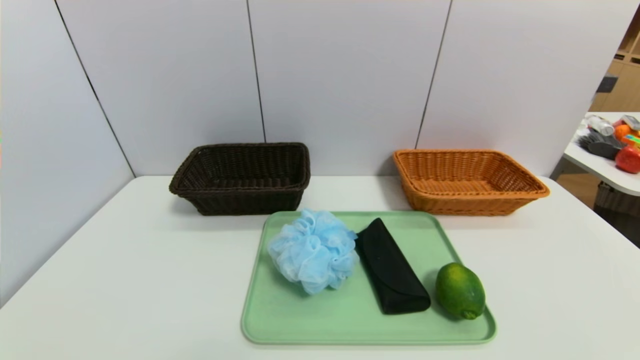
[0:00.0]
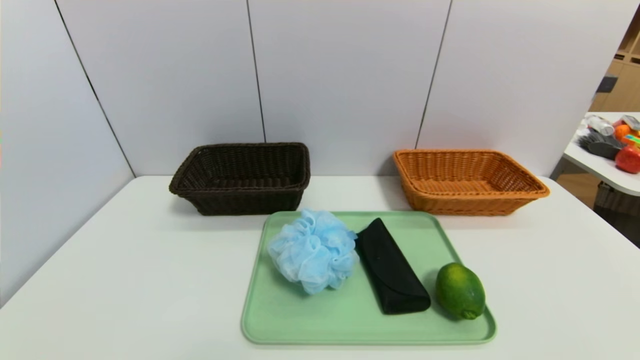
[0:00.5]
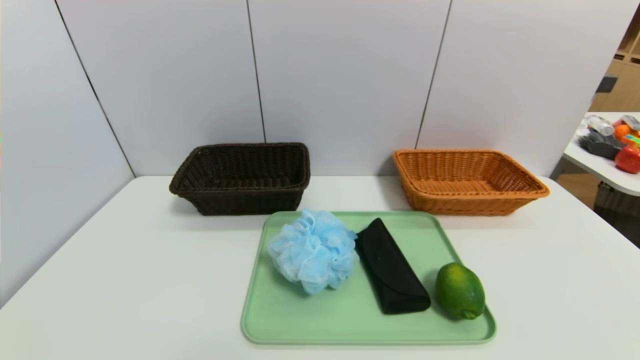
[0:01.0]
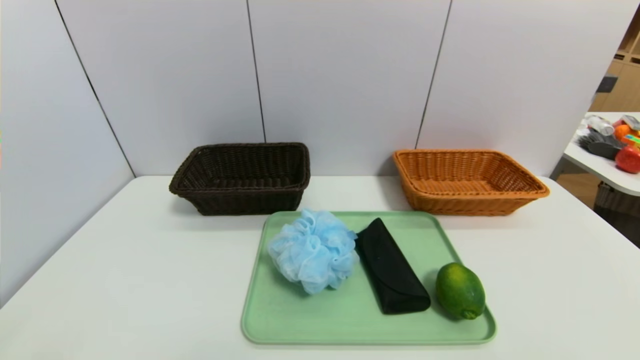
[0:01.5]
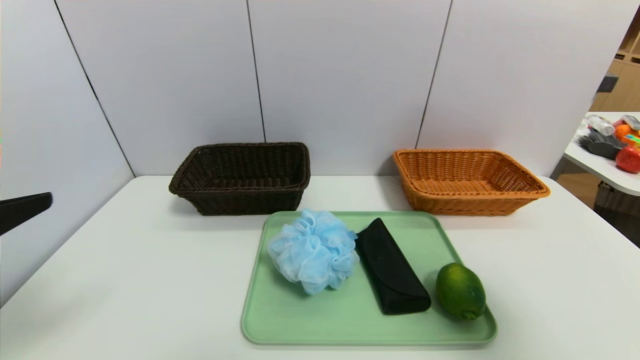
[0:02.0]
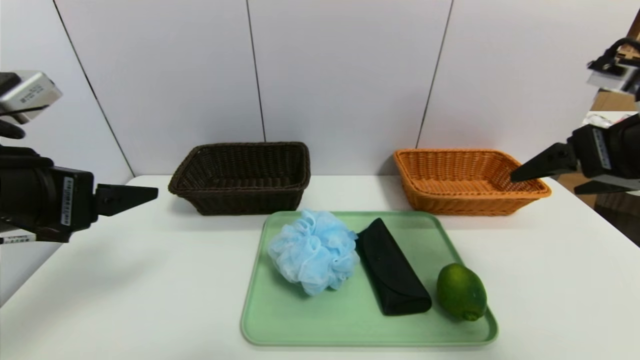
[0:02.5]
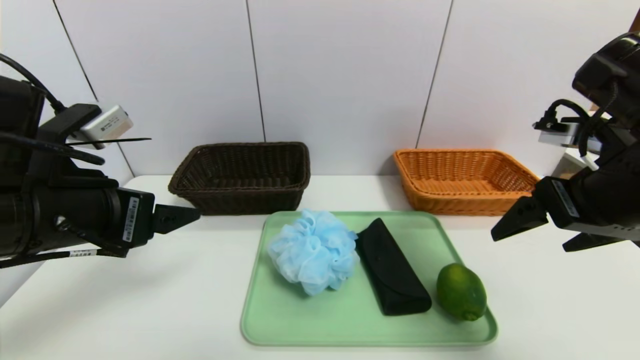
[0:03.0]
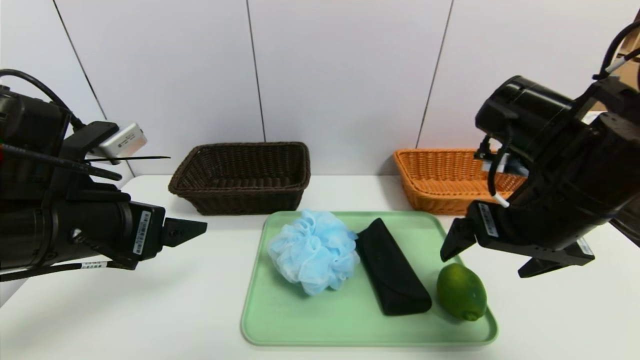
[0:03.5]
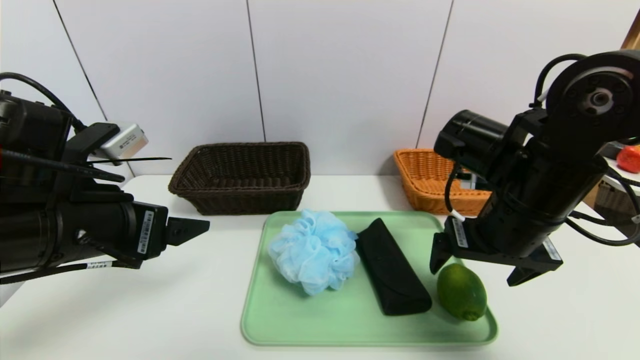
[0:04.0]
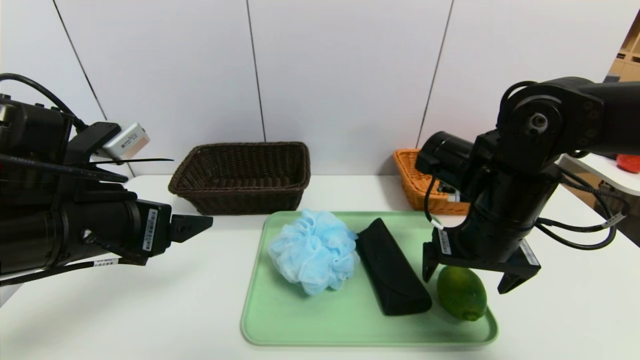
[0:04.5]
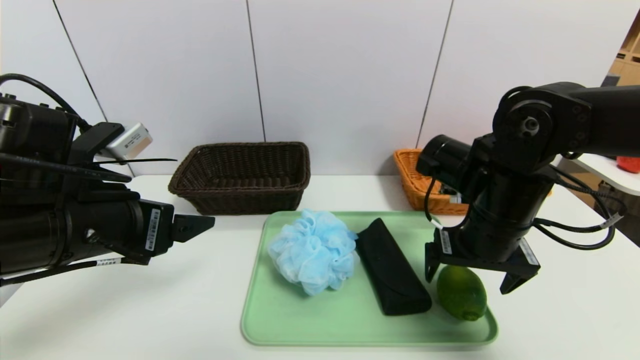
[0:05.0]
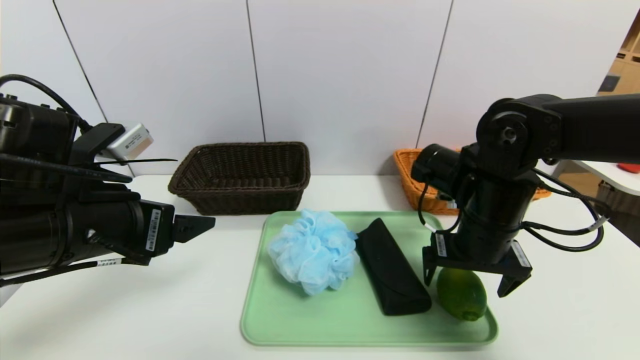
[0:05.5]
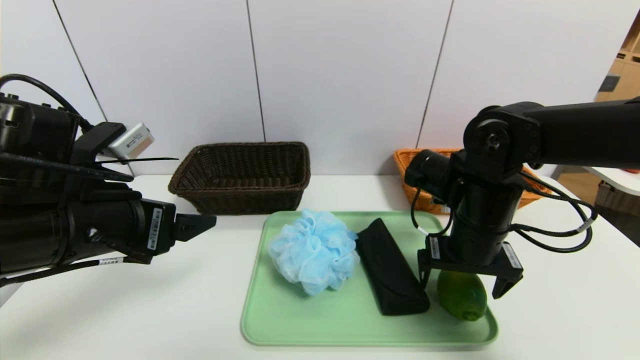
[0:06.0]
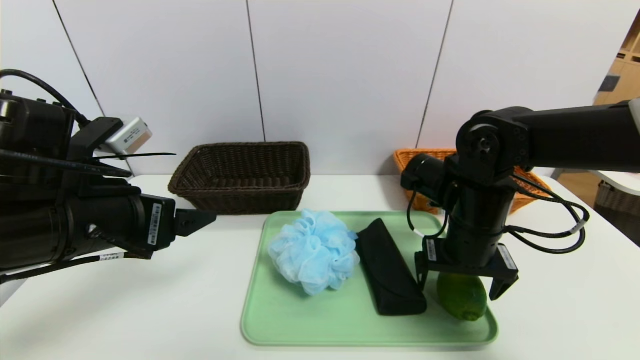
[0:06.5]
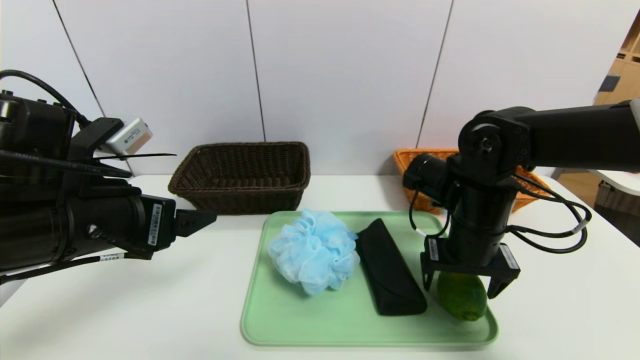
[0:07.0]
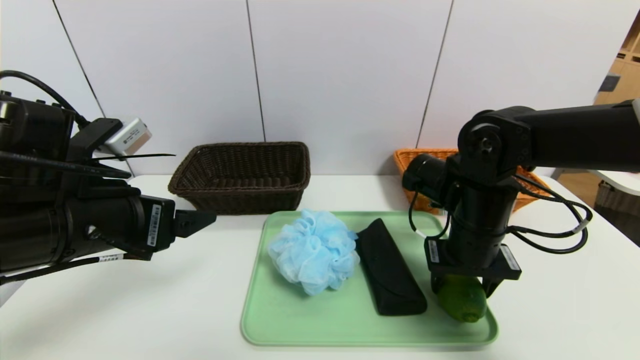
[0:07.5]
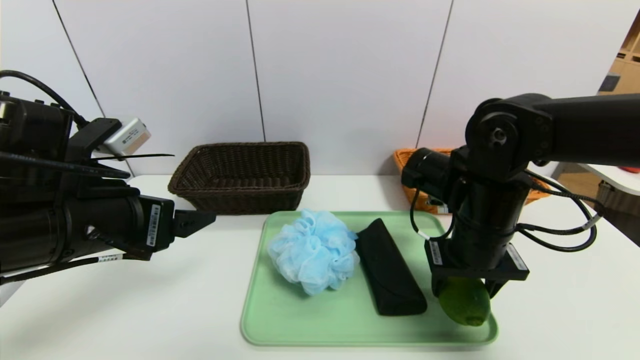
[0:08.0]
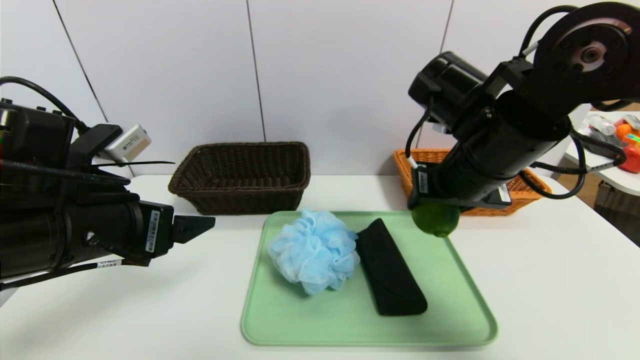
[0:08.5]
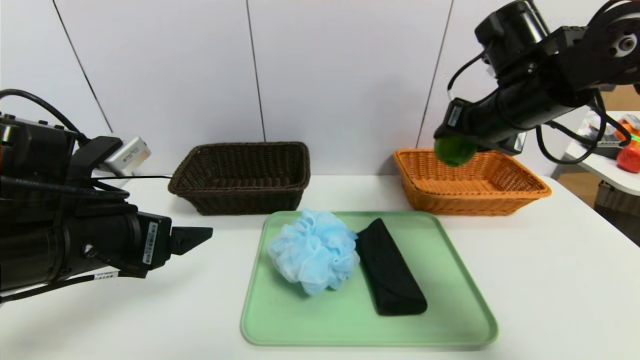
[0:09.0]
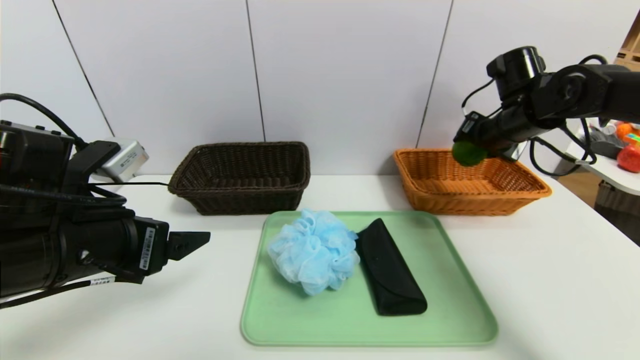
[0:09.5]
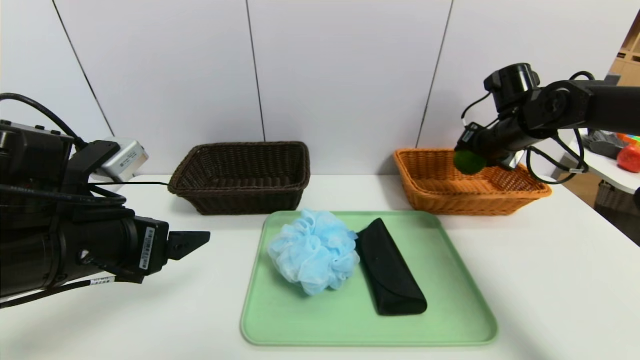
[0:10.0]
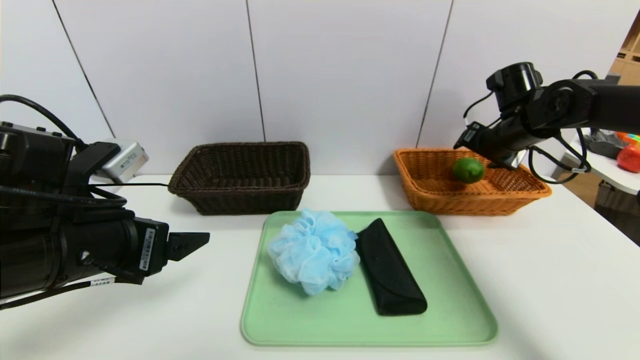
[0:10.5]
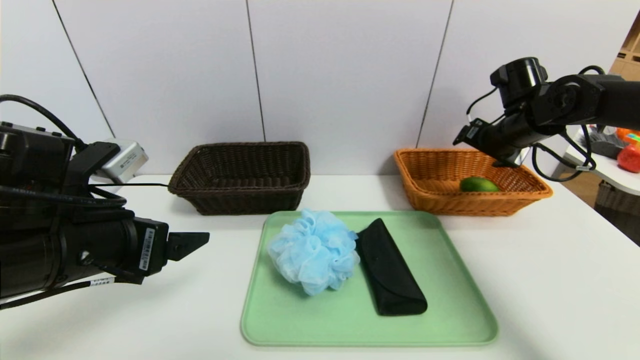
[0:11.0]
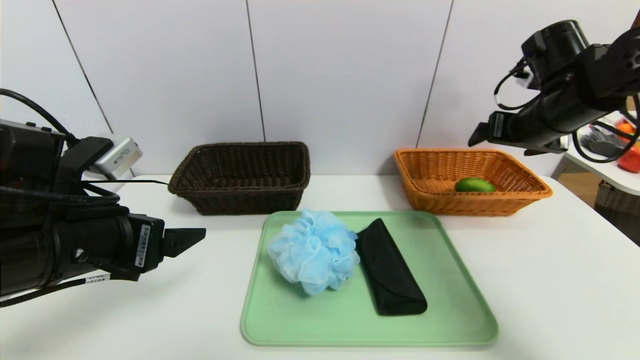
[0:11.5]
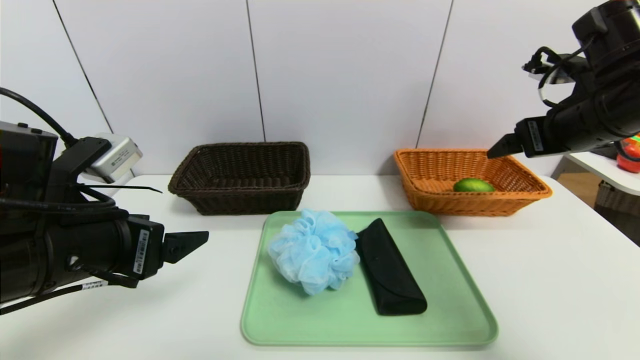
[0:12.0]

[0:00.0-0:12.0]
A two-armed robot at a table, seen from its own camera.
Task of the whole recording: place the food in the right basket with the right gripper, and place the non food items in the left basket with the left gripper.
Step, 0:00.0 to 0:10.5: Grasp the lemon and put it in the right basket.
0:00.0 to 0:02.0: The right gripper goes approximately 30 cm upward; the left gripper travels upward and forward by approximately 25 cm.
0:02.0 to 0:04.0: The left gripper shifts some 15 cm forward, to the right and downward. Meanwhile the right gripper moves forward, to the left and downward, about 25 cm.
0:04.0 to 0:06.0: The right gripper goes some 5 cm downward.
0:06.0 to 0:08.0: The right gripper closes.
0:08.0 to 0:10.0: The right gripper goes about 20 cm forward and to the right.
0:10.0 to 0:12.0: The right gripper goes some 15 cm backward and upward, and opens up.

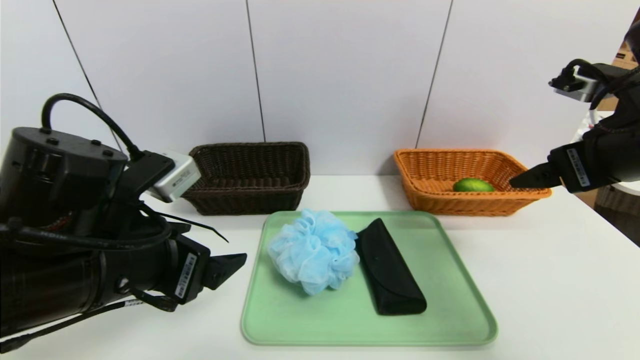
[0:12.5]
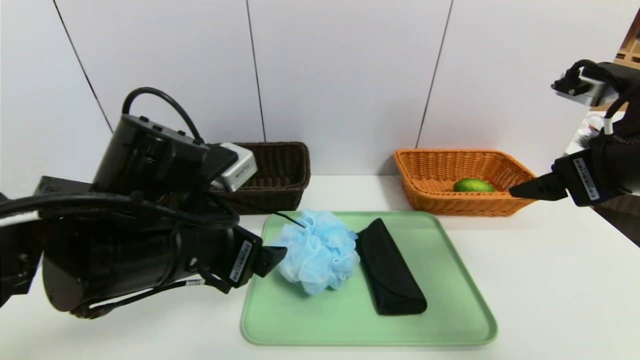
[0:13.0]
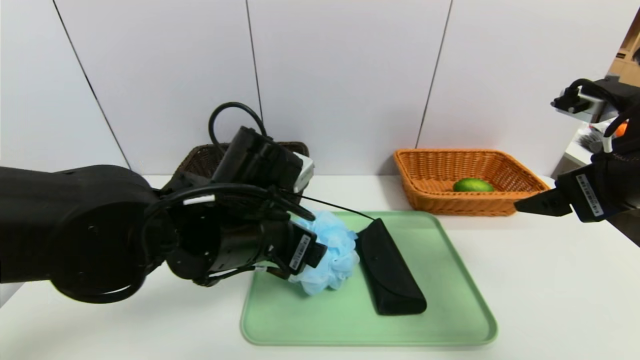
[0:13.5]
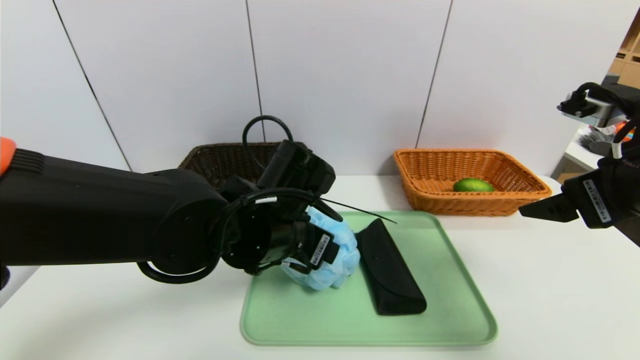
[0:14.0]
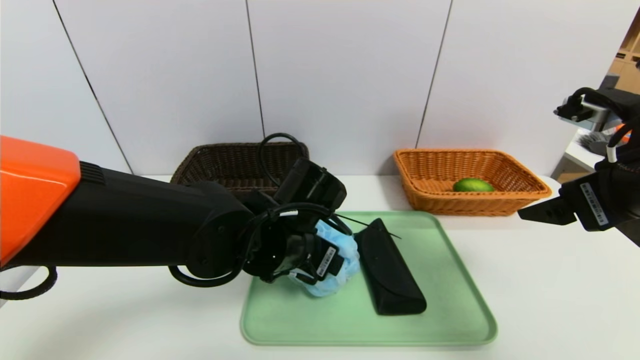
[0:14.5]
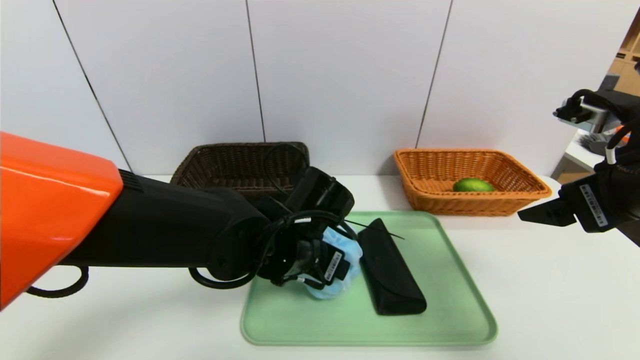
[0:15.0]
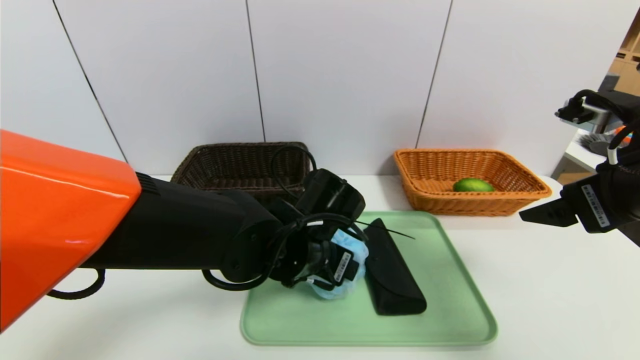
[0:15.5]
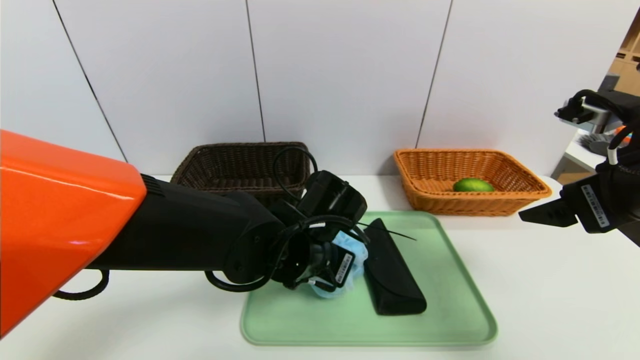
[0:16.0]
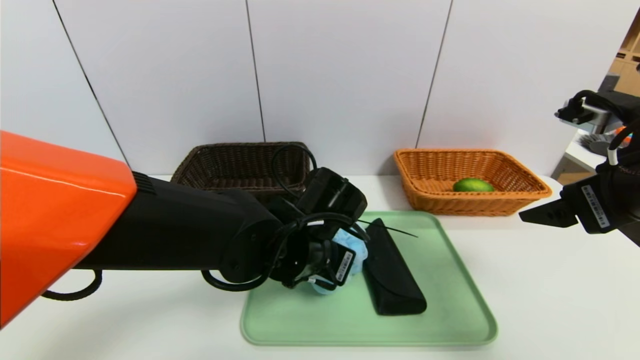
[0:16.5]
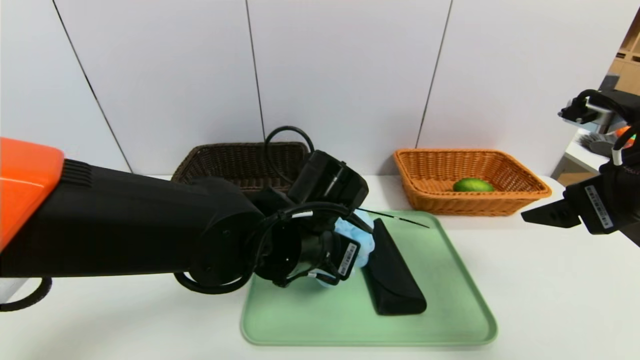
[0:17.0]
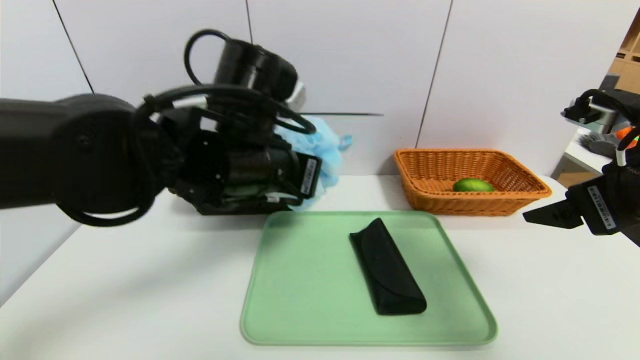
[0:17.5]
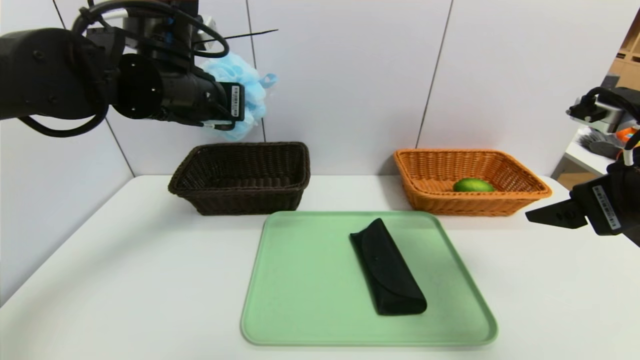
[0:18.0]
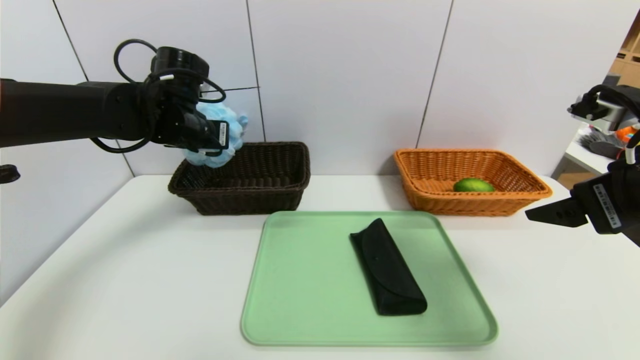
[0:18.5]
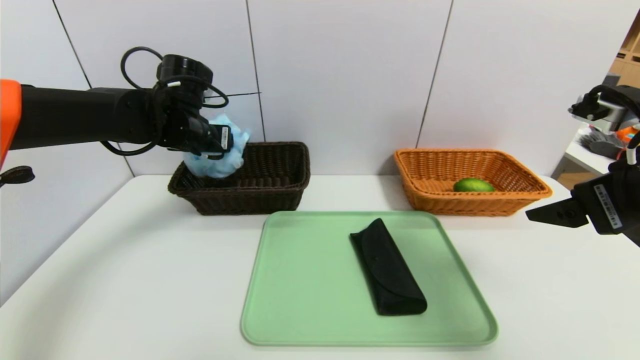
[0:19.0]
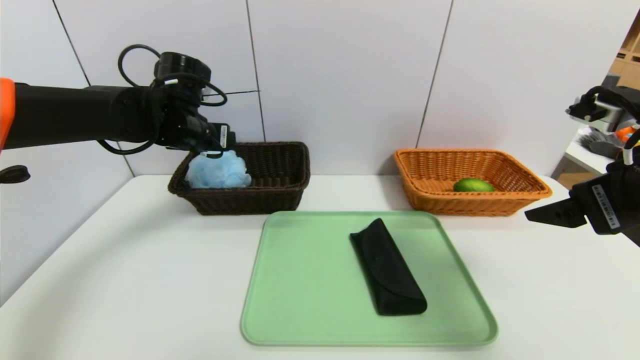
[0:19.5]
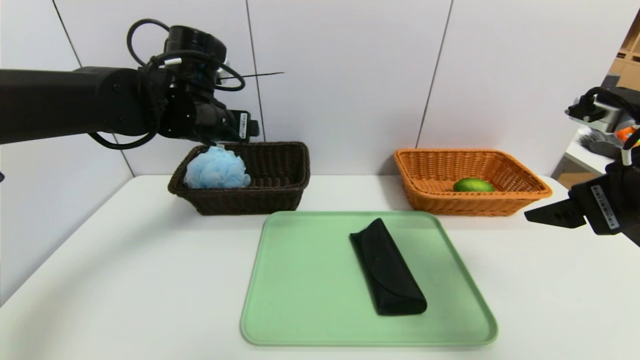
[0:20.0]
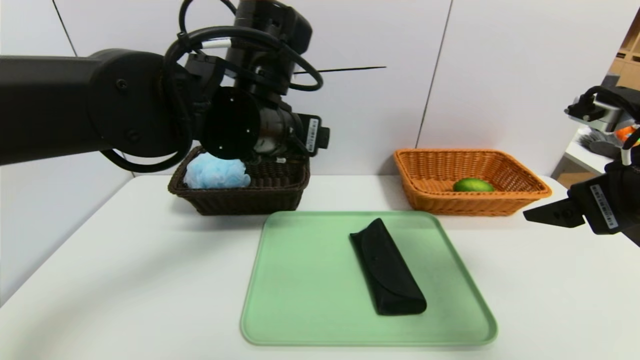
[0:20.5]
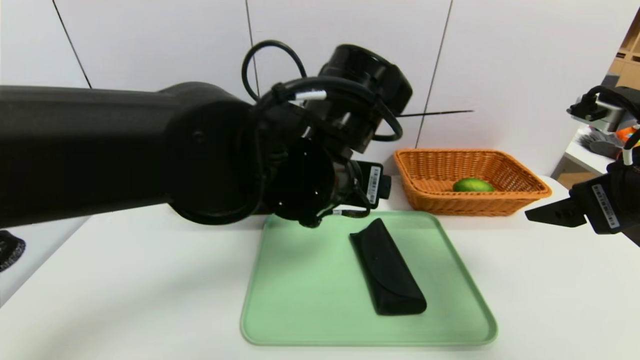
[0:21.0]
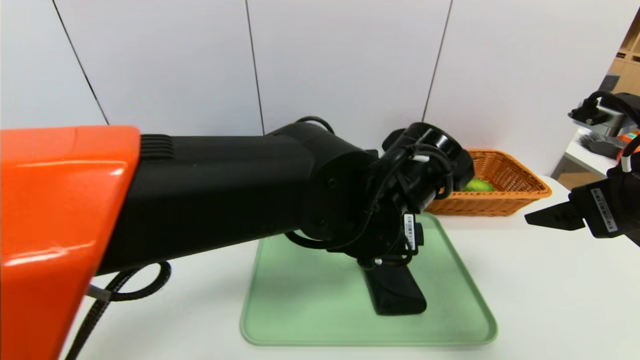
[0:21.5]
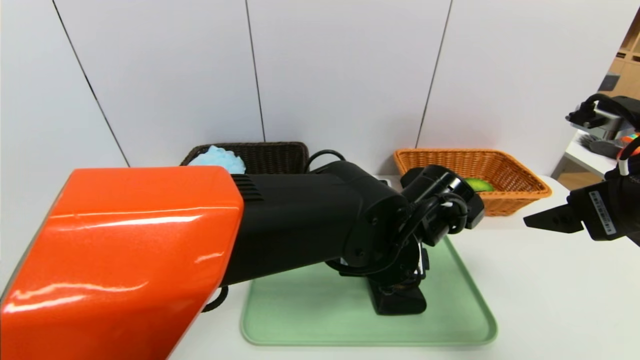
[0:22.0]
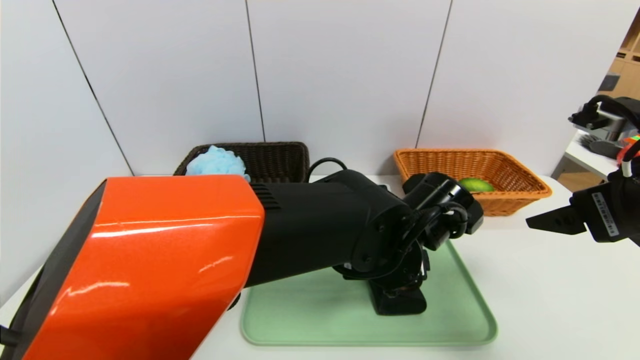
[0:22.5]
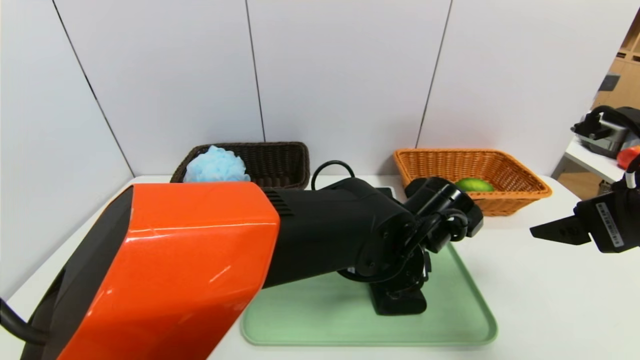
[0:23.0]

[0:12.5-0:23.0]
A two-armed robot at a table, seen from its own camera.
Task of the whole recording: place the food in the right basket with the right gripper, and place the non food items in the left basket with the left gripper.
Step, 0:12.5 to 0:19.0: Grasp the shower sphere and put it in the left basket.
0:12.5 to 0:14.5: The left gripper shifts about 20 cm to the right, forward and downward.
0:14.5 to 0:16.5: The left gripper closes up.
0:16.5 to 0:19.0: The left gripper goes roughly 25 cm to the left, forward and upward, and opens up.
0:19.0 to 0:21.0: The left gripper is displaced to the right and backward by some 25 cm.
0:21.0 to 0:23.0: The left gripper heads downward and to the right, covering approximately 15 cm.
